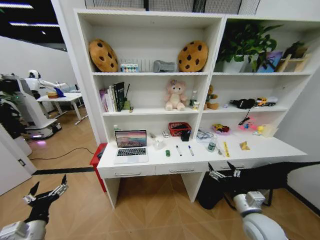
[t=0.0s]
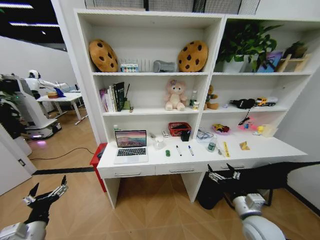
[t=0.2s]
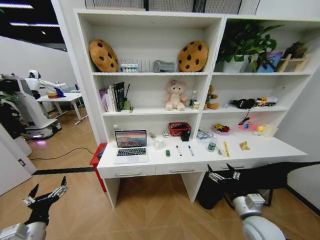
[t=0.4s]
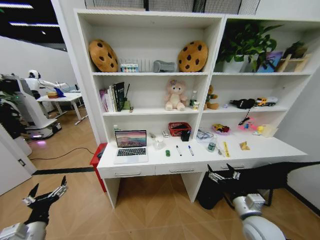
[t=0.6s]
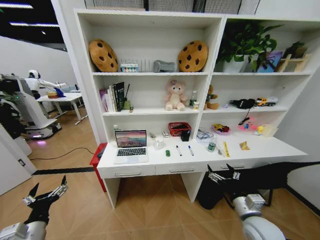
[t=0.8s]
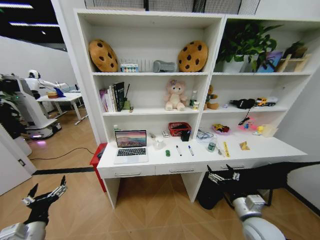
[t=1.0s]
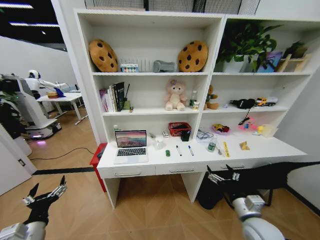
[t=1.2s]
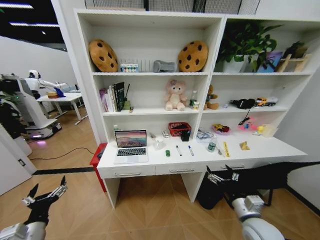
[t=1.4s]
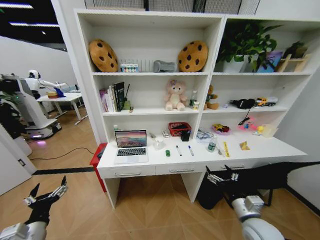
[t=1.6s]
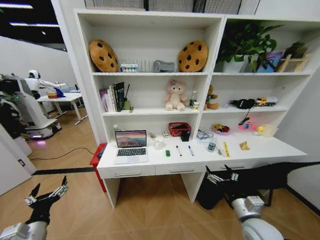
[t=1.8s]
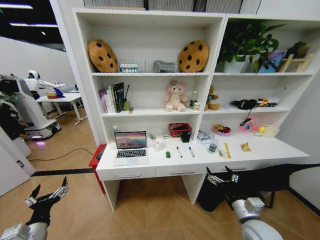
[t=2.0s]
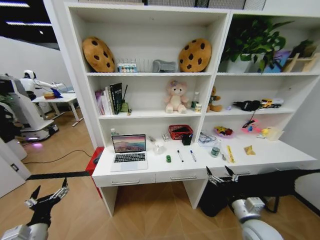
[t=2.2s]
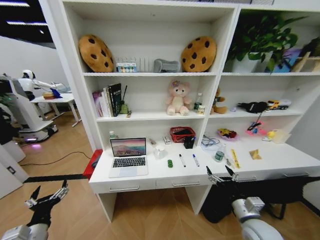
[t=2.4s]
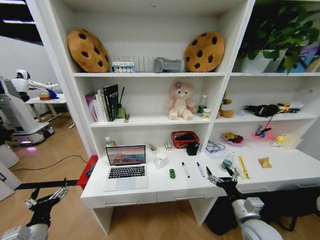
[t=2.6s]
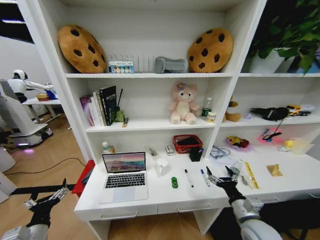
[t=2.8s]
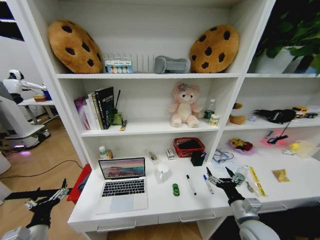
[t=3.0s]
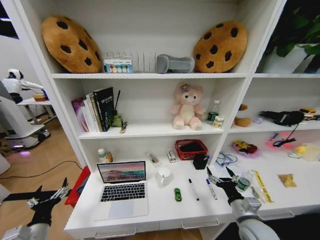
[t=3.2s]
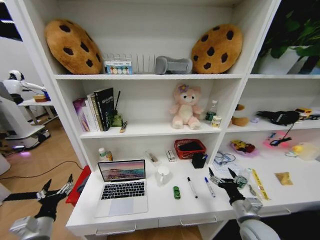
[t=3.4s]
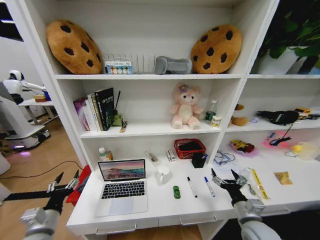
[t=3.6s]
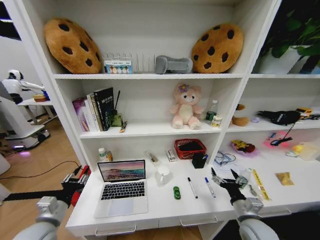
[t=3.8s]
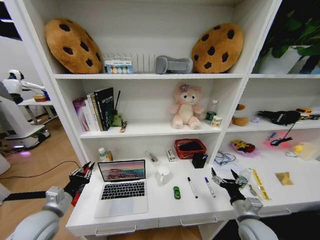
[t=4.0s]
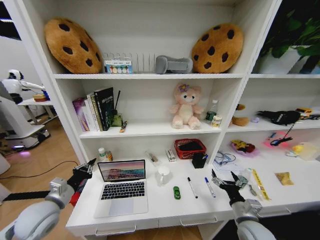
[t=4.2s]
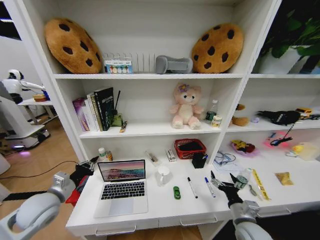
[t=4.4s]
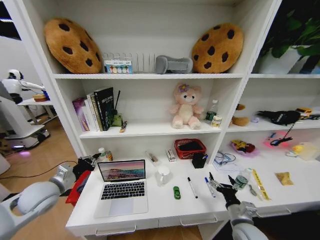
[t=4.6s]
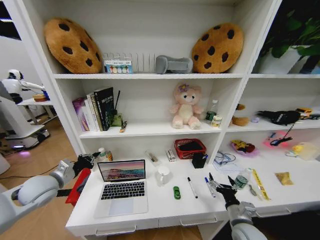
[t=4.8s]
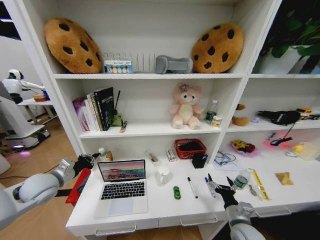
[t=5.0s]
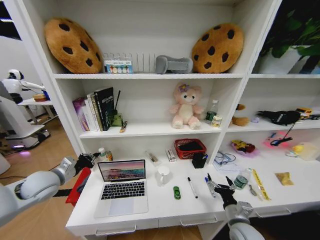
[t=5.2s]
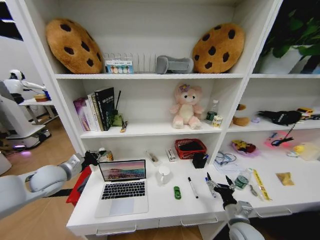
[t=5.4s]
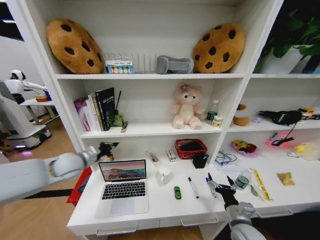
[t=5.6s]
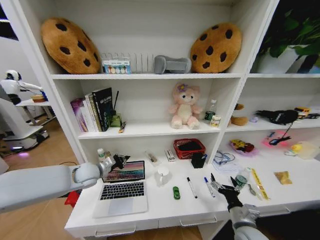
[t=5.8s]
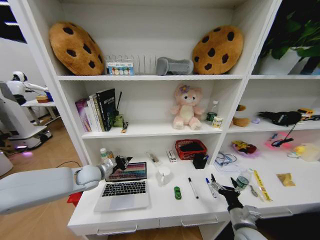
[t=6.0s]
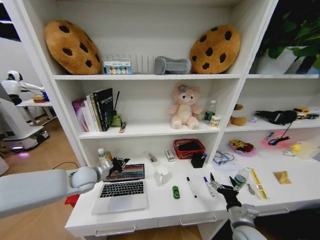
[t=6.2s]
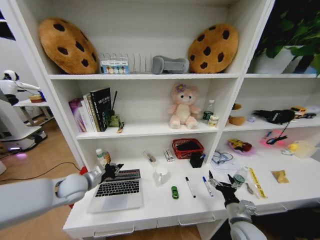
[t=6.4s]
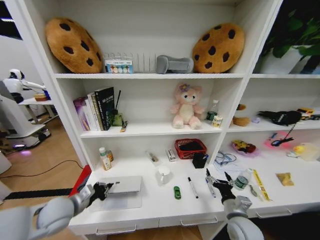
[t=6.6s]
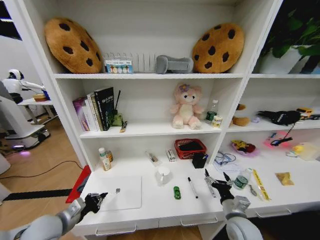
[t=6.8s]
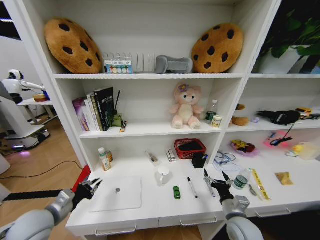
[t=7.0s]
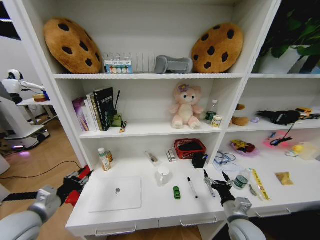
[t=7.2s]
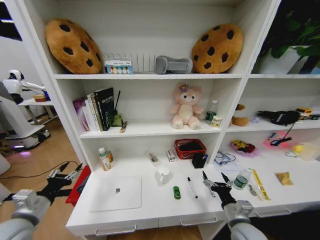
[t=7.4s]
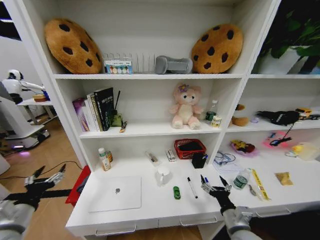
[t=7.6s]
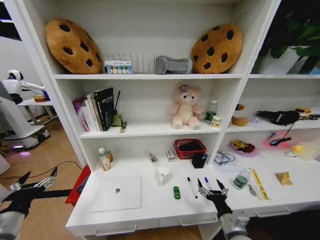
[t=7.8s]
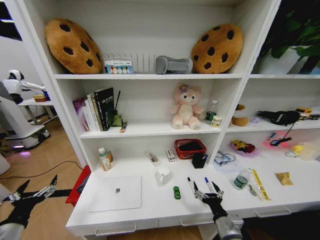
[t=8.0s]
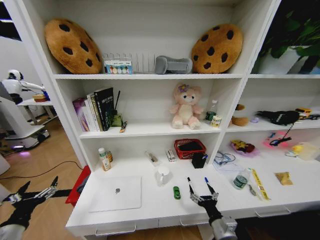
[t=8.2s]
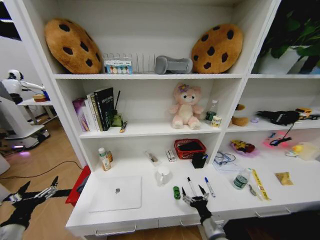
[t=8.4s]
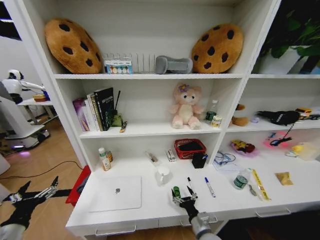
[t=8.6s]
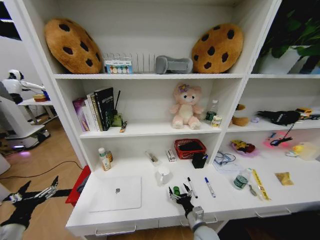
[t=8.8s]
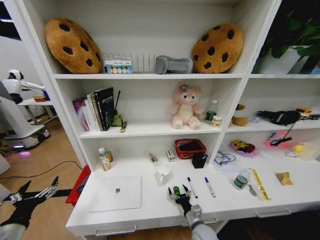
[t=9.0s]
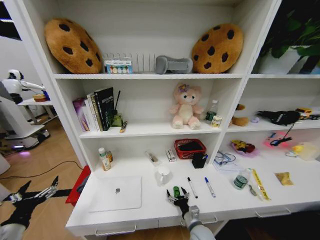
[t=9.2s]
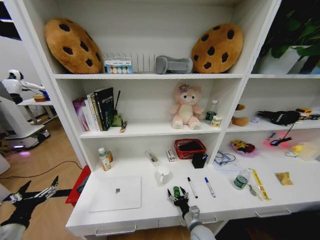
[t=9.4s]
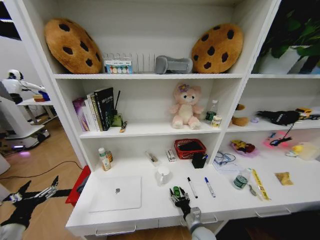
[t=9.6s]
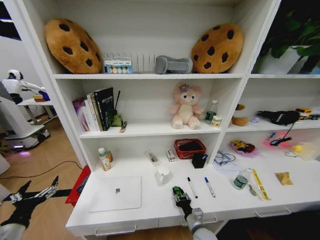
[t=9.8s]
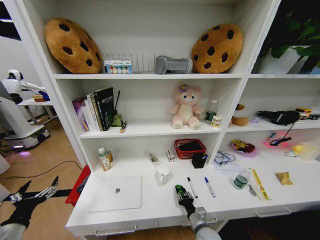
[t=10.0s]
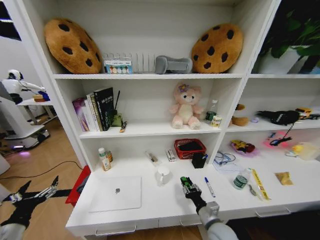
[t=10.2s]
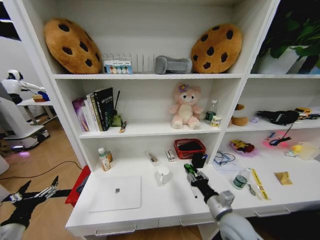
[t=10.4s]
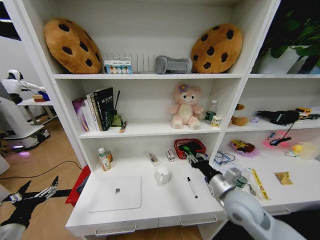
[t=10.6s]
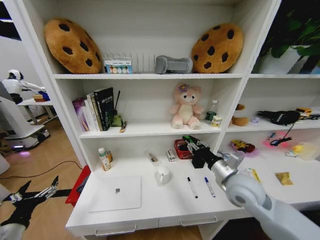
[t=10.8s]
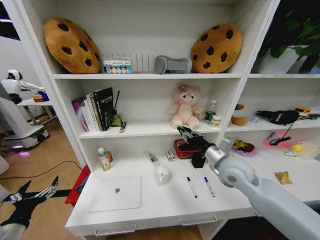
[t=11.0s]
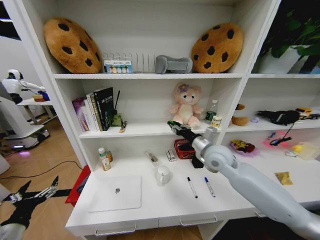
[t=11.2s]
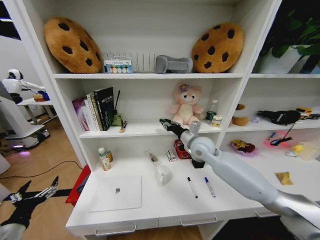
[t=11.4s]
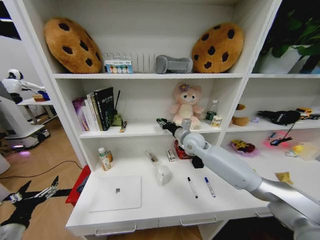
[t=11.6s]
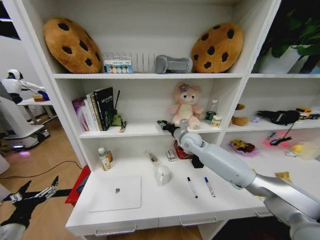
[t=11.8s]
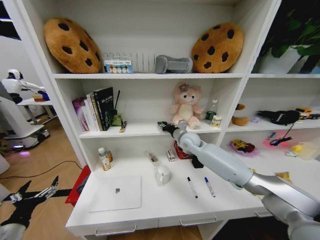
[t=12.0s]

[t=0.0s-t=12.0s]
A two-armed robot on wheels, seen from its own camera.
Task of the whole recording: Organize the objects on the table.
t=3.0s to t=4.4s: The left gripper heads forward and upward, covering about 15 cm, and closes up.
t=4.4s to t=6.0s: The left gripper shifts some 15 cm forward and to the right.
t=6.0s to t=7.6s: The left gripper is displaced backward and to the left by roughly 25 cm, and opens up.
t=7.6s to t=9.0s: The left gripper ends up approximately 5 cm from where it was, while the right gripper shifts roughly 15 cm downward and to the left.
t=9.0s to t=10.4s: The right gripper shifts roughly 10 cm upward, and closes its fingers.
t=10.4s to t=12.0s: The right gripper moves forward and upward, approximately 35 cm.

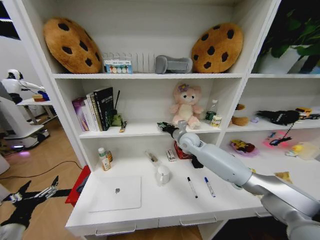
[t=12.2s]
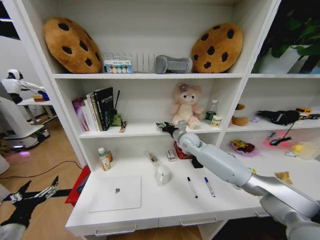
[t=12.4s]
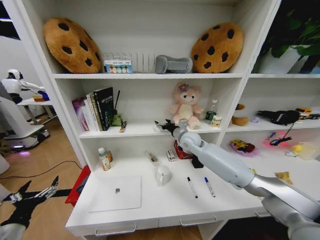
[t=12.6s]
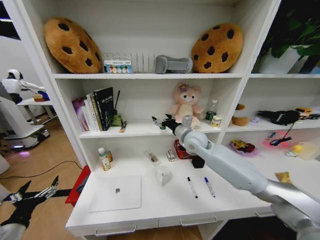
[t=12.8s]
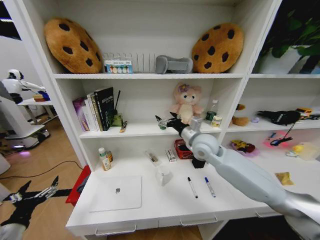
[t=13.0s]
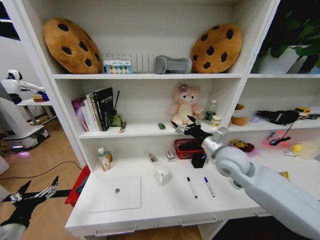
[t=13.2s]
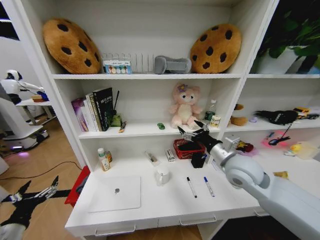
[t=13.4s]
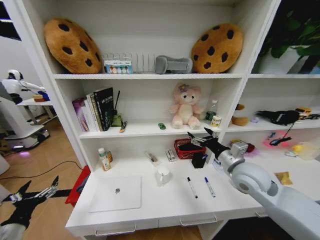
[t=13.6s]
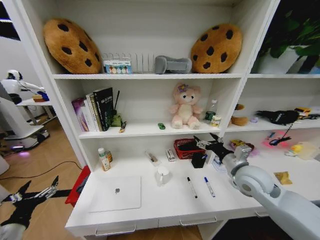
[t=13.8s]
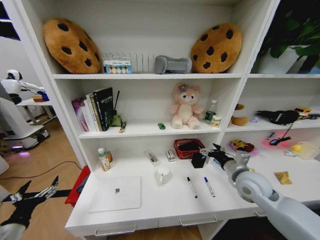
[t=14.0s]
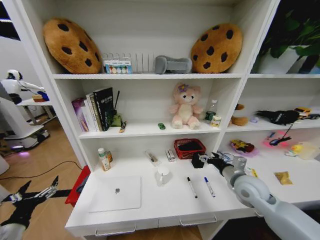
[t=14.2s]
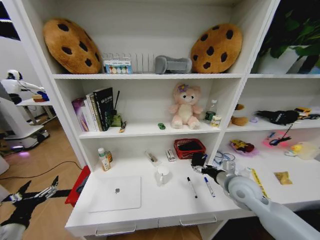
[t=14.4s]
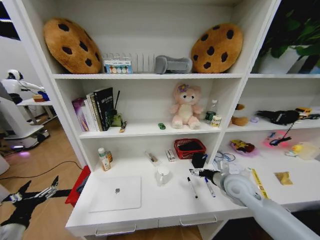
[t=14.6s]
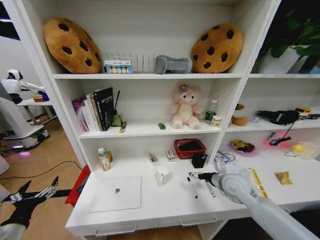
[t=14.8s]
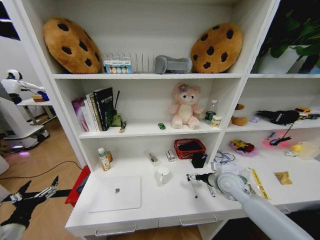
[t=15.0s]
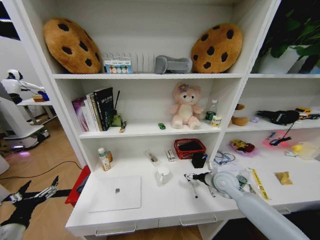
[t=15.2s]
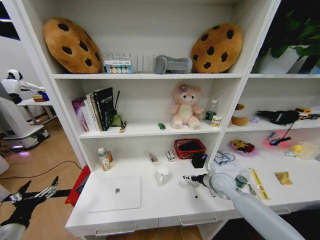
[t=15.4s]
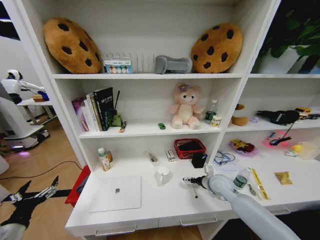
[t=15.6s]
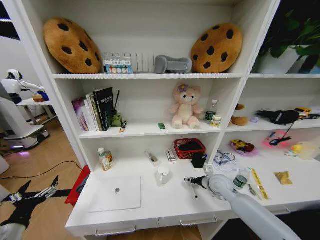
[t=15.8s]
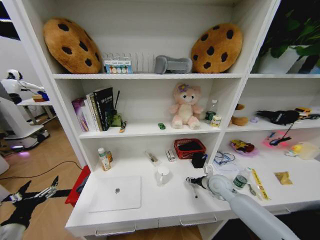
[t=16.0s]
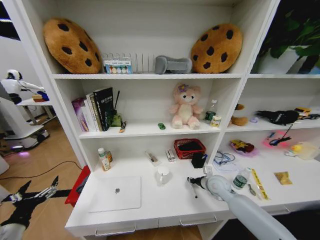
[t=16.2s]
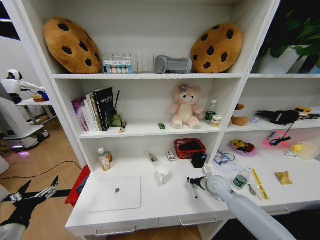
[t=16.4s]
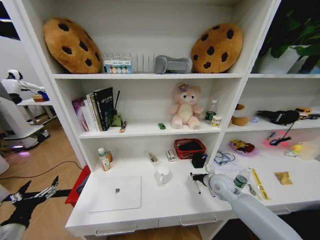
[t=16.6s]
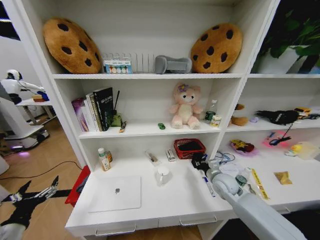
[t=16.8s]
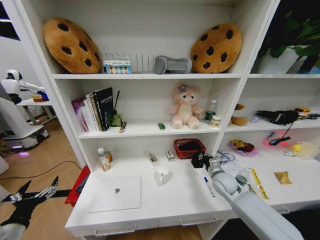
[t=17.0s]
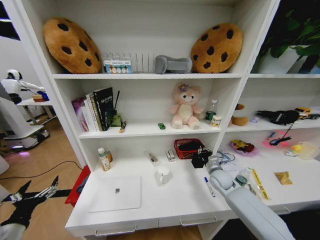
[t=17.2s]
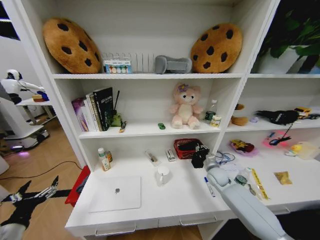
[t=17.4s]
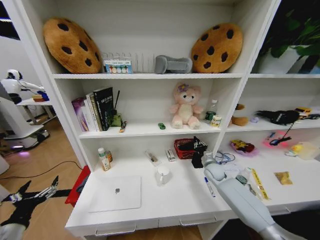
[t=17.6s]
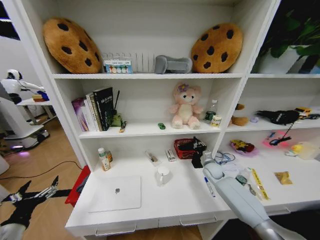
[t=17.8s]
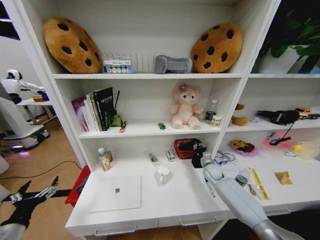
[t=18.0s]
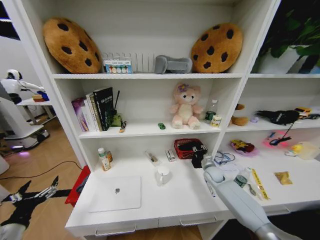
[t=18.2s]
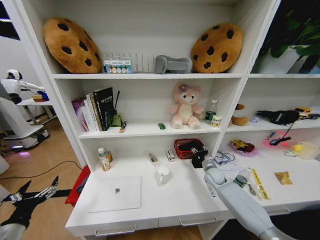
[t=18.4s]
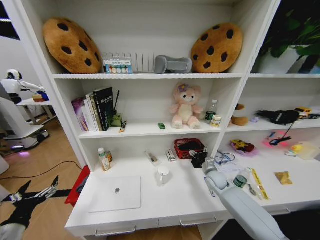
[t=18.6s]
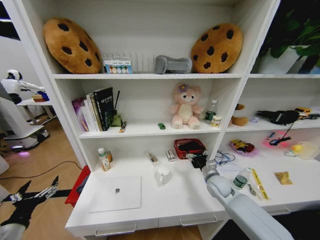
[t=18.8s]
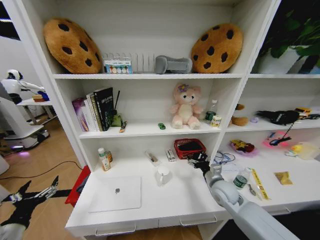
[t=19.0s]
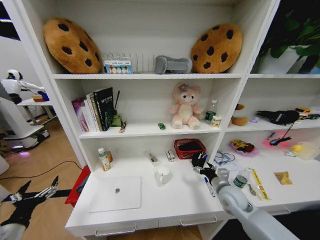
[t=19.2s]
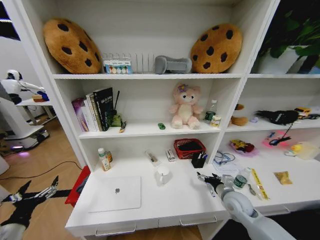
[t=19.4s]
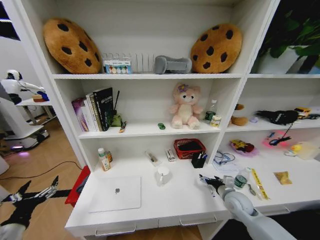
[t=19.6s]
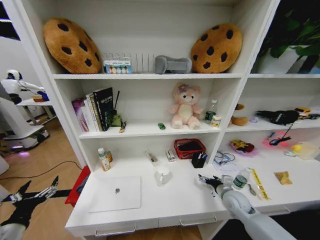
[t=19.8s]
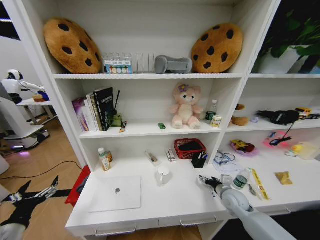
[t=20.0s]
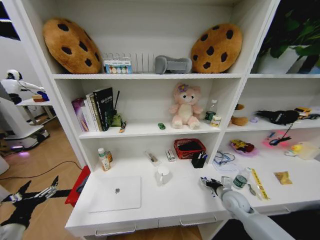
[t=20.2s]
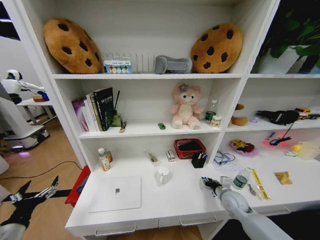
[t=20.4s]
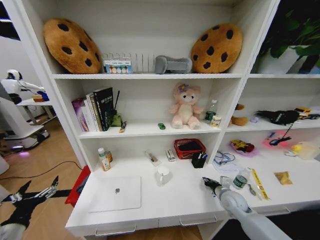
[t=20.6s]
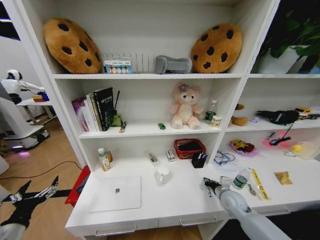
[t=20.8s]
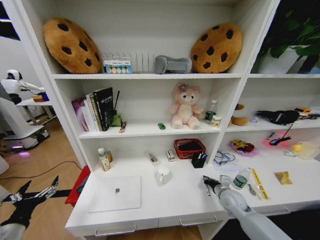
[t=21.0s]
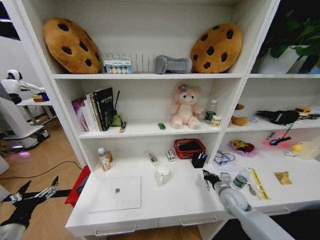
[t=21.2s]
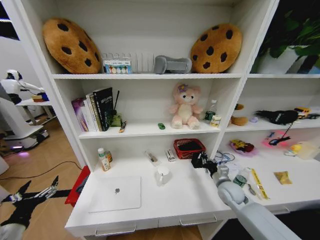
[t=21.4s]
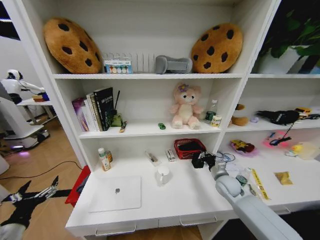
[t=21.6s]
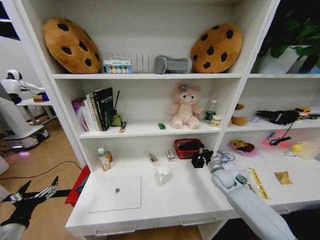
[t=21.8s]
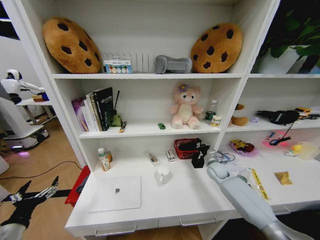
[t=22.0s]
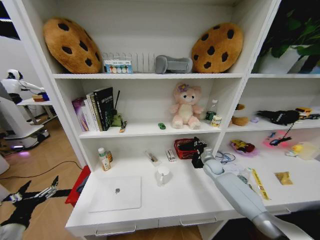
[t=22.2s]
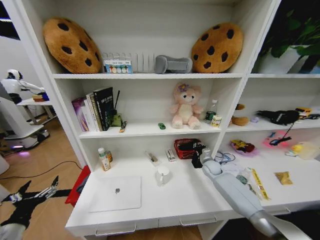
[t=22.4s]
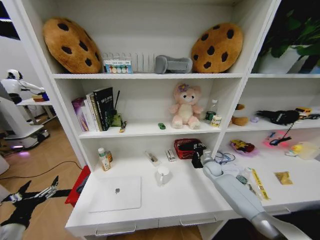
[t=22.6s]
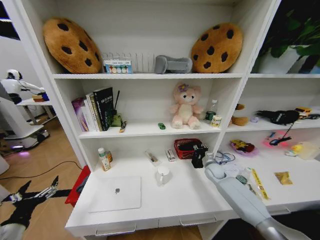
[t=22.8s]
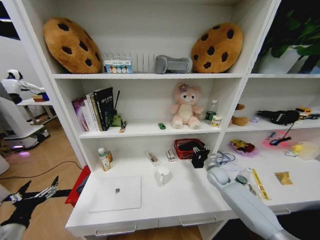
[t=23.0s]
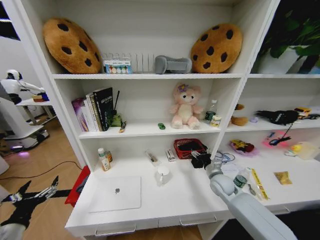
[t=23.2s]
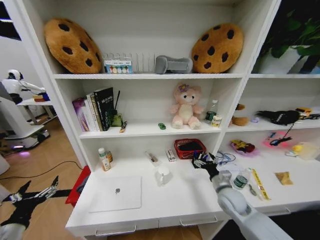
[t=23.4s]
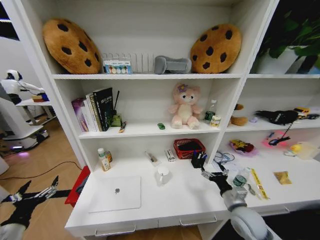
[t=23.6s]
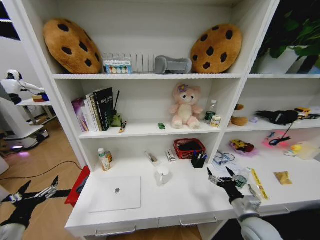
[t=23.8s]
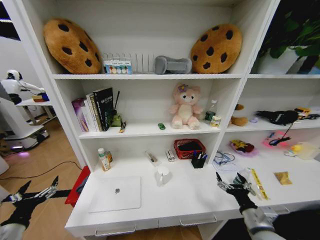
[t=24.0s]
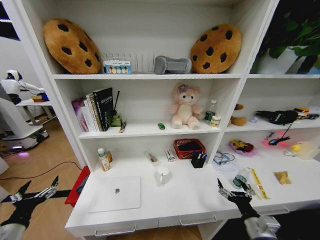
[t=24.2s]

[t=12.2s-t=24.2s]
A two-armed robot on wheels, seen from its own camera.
Task of the whole recording: Organize the objects on the table.
t=12.2s to t=13.8s: The right gripper shifts about 25 cm backward and to the right, and opens its fingers.
t=13.8s to t=15.2s: The right gripper shifts about 10 cm downward and forward.
t=15.2s to t=16.6s: The right gripper closes its fingers.
t=16.6s to t=18.2s: The right gripper shifts about 10 cm forward and downward.
t=18.2s to t=19.8s: The right gripper moves backward, some 15 cm, and opens.
t=19.8s to t=21.2s: The right gripper closes up.
t=21.2s to t=22.6s: The right gripper travels forward by about 15 cm.
t=22.6s to t=24.2s: The right gripper travels backward by about 35 cm, and opens up.
